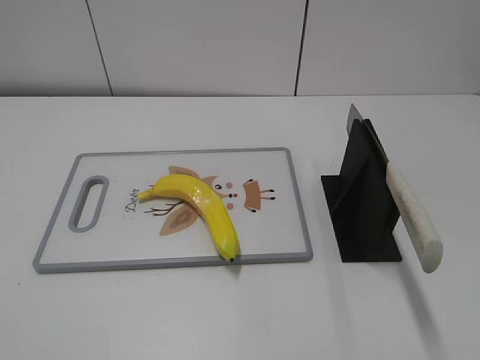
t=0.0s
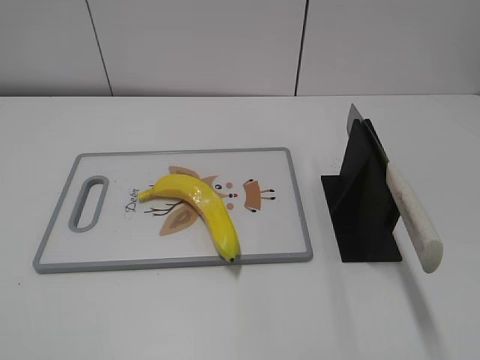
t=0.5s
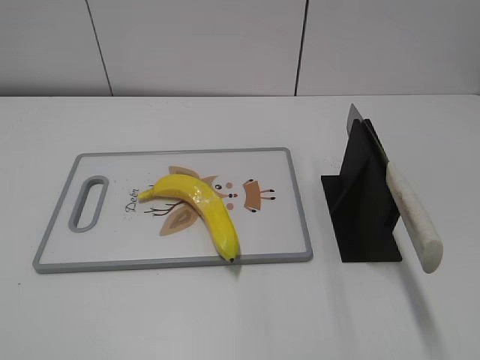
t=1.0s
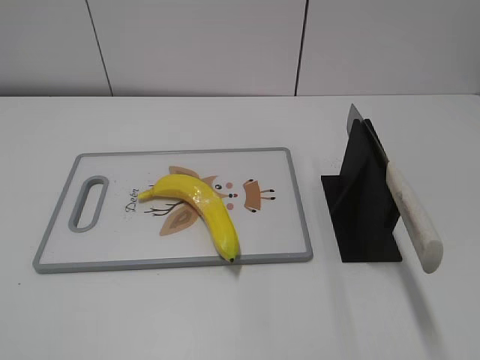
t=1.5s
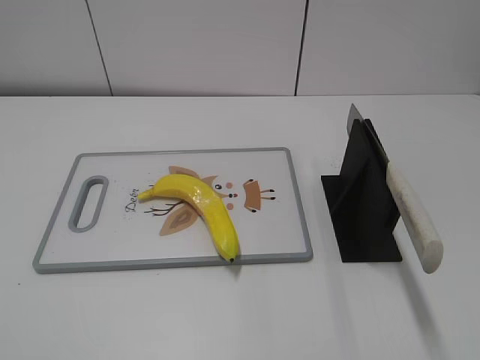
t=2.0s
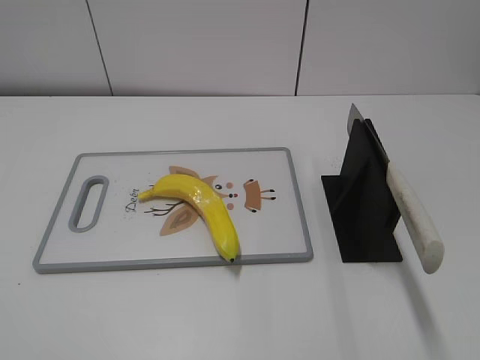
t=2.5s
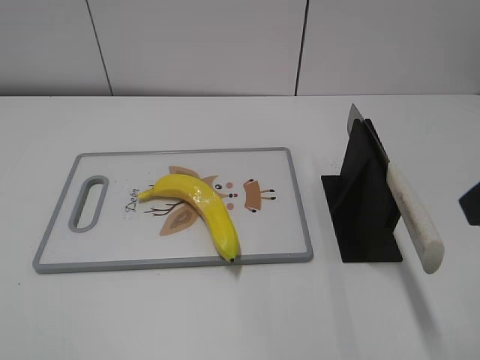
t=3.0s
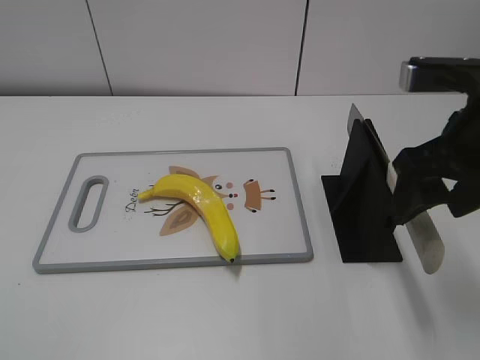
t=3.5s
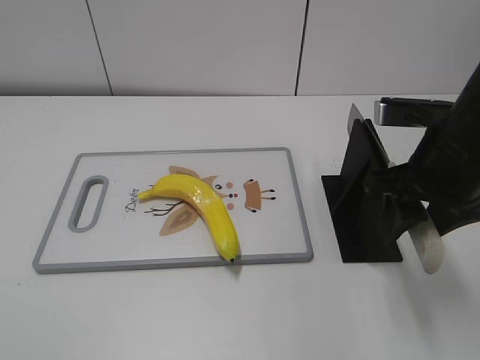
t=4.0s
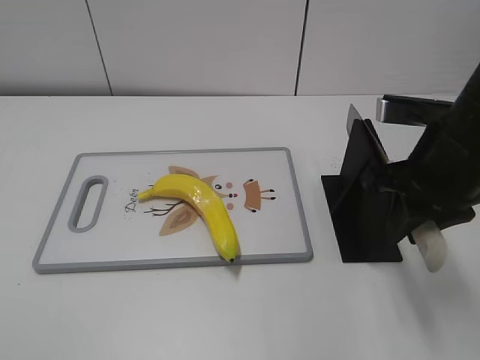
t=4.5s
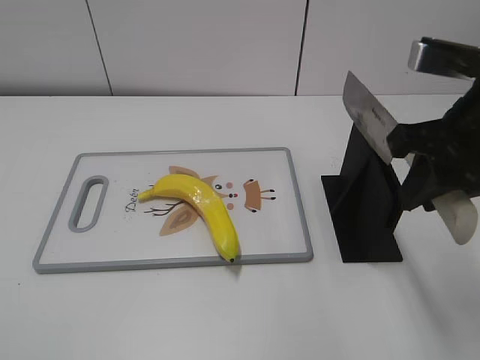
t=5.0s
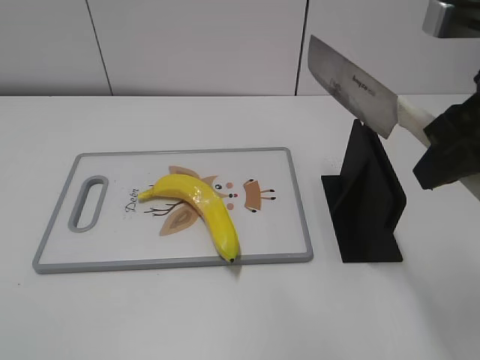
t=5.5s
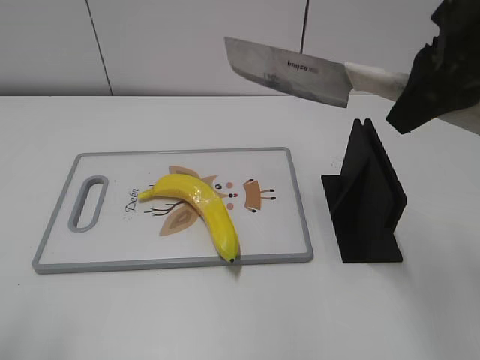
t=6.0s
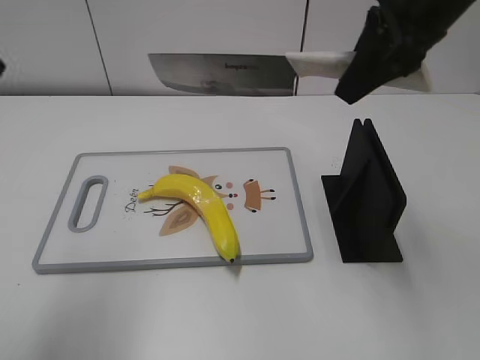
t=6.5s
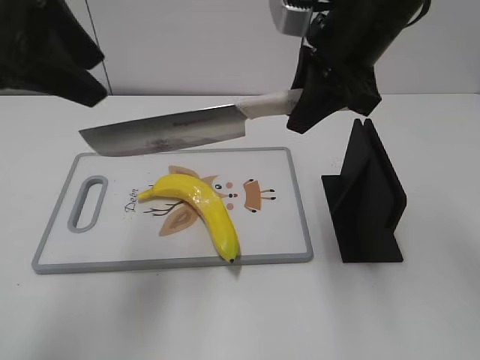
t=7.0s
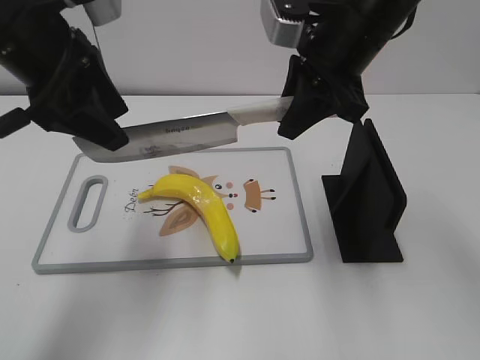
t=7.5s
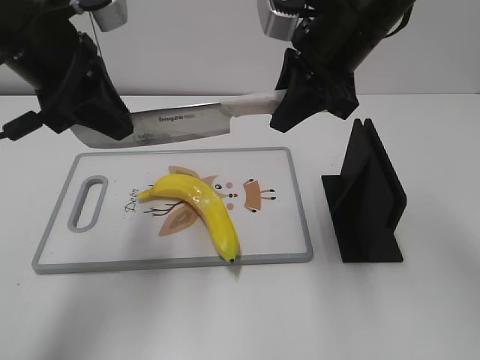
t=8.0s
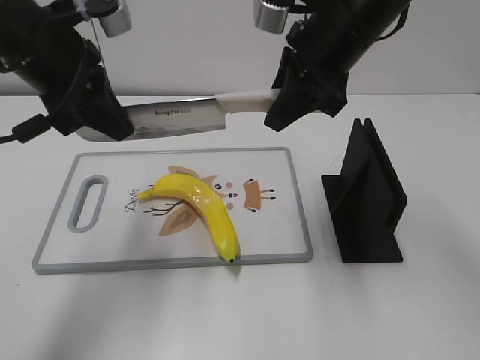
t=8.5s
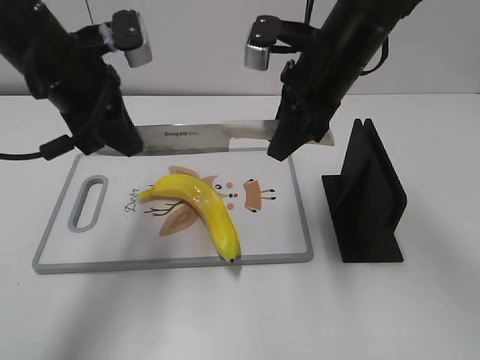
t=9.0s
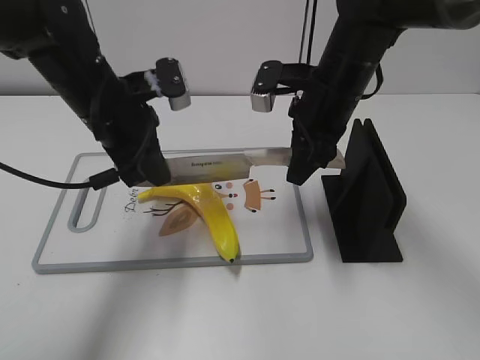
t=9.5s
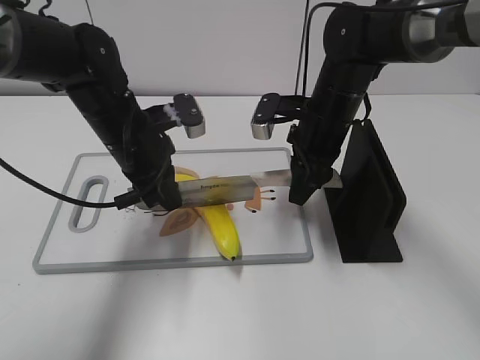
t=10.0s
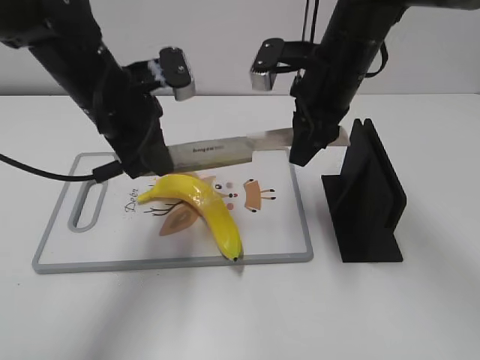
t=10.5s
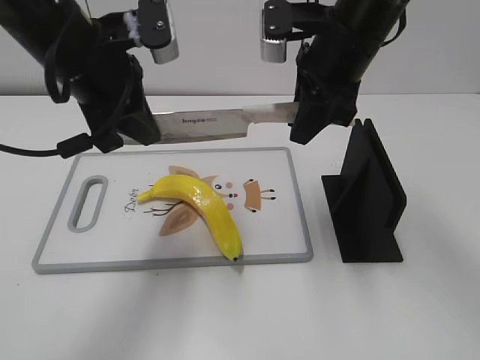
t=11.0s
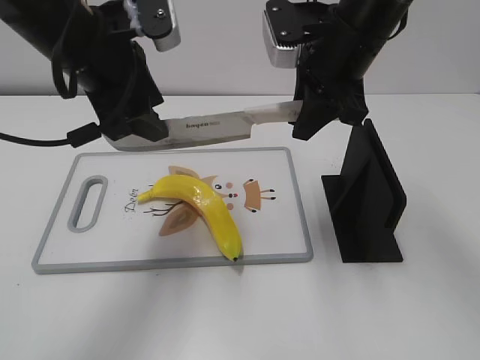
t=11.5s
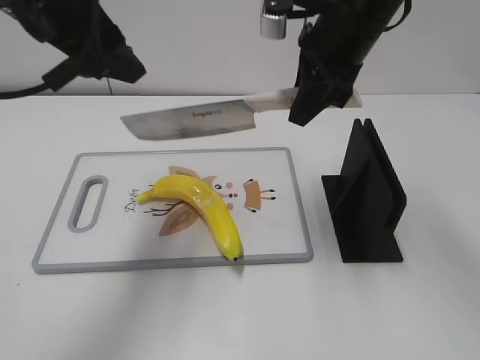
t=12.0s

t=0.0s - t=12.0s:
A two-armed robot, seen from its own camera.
Task of the whole recording: cut plastic banana.
Step, t=0.0s - t=5.0s: Grab the knife handle with your right hand.
Step, t=6.0s - t=10.5s: Lift the knife with your right hand.
t=2.0s - t=4.0s: The right gripper is displaced forward, to the left and downward by about 30 cm, and closes up.
t=4.0s - t=6.0s: The left gripper moves forward and upward, roughly 15 cm; the right gripper travels upward by roughly 10 cm, and closes its fingers.
t=6.0s - t=8.0s: The right gripper heads forward, to the left and downward, covering some 15 cm; the left gripper goes about 25 cm forward and to the right, and closes its fingers.
t=8.0s - t=10.0s: The right gripper is displaced downward by approximately 15 cm. The left gripper moves downward and to the right, some 15 cm.
t=10.0s - t=12.0s: Both grippers travel together upward, roughly 15 cm. The left gripper opens its fingers.

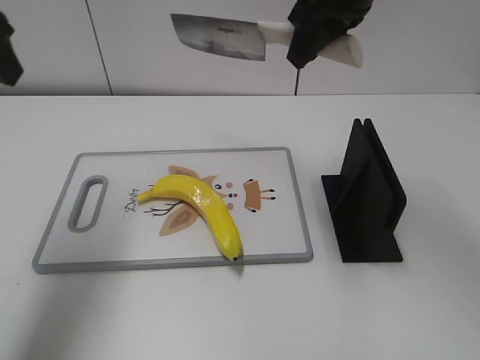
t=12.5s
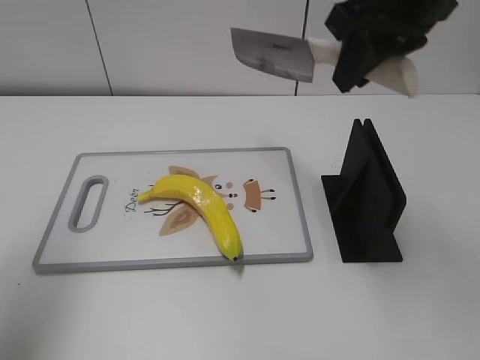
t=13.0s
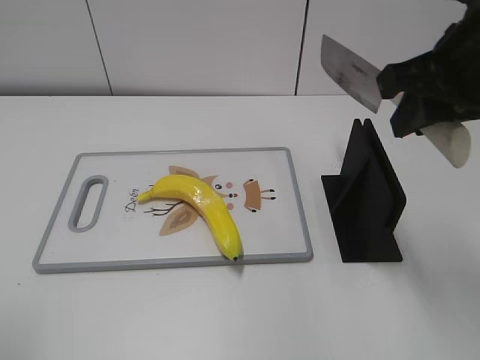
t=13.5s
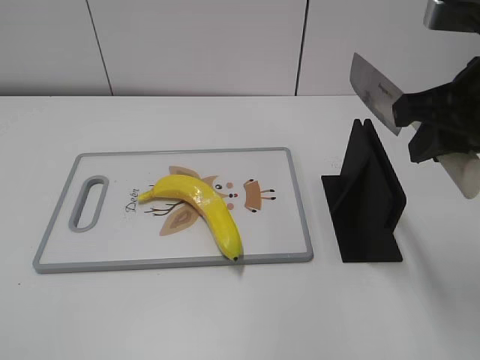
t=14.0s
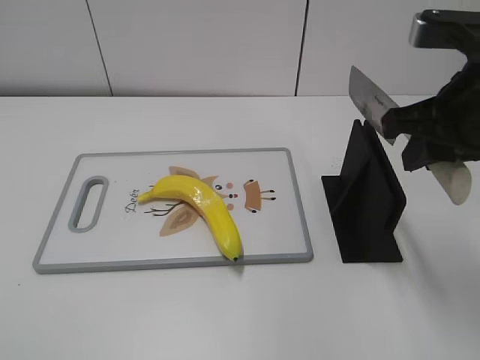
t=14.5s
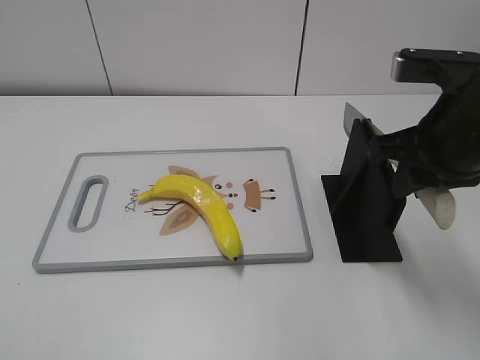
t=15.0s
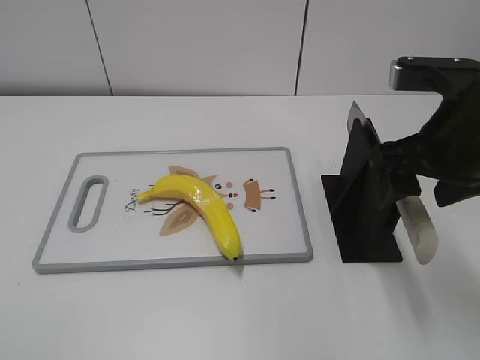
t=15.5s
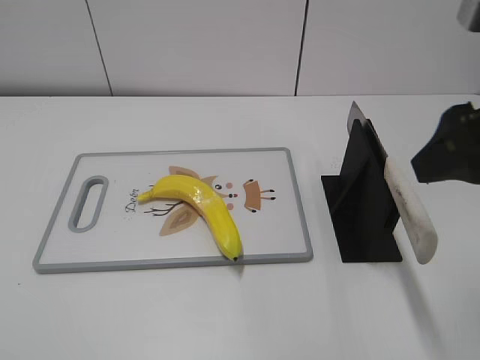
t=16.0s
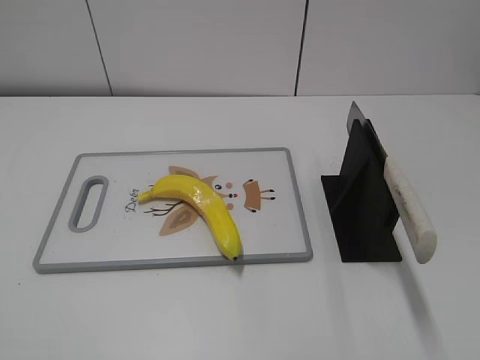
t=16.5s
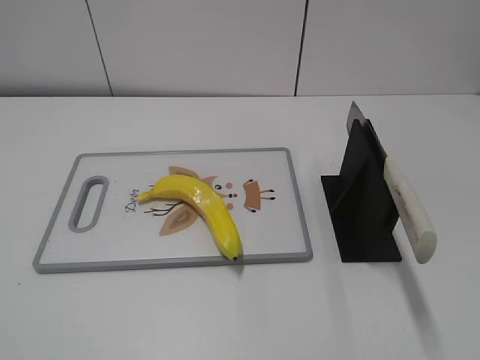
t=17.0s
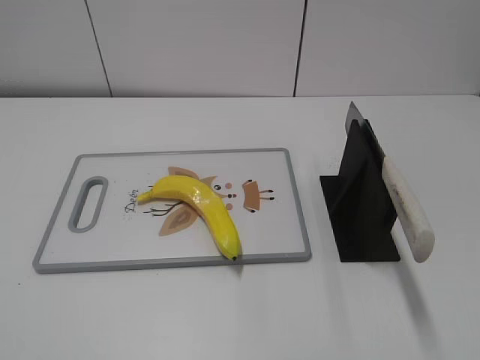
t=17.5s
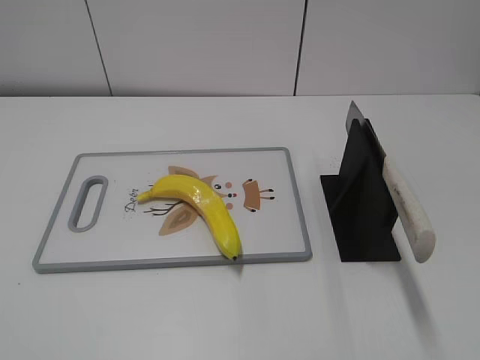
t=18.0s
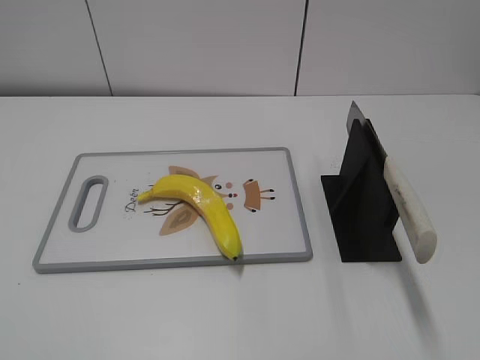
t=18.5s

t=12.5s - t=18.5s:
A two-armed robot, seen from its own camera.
Task of the whole recording: cut plastic banana.
Step, t=13.0s - t=13.5s: Lift the knife with your right hand.
Step, t=14.0s - t=18.5s: Place the knife on the storage rack with your right hand.
t=12.5s - t=14.5s: The right gripper moves backward, to the right and downward, about 15 cm, while the left gripper travels backward by approximately 30 cm.
t=14.5s - t=16.5s: The right gripper heads backward, covering about 20 cm, and opens its fingers.
